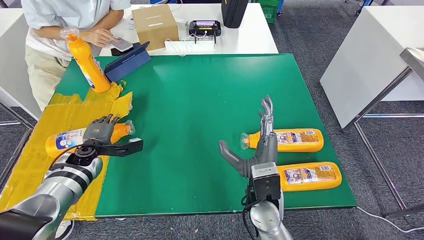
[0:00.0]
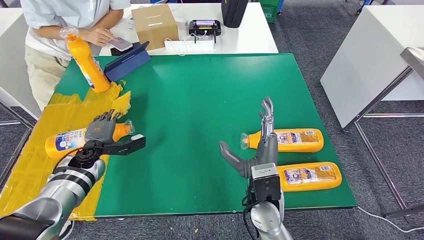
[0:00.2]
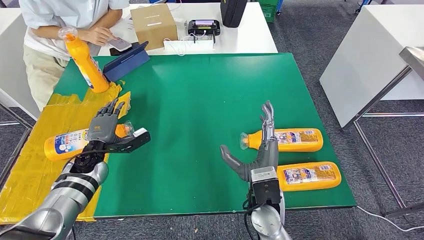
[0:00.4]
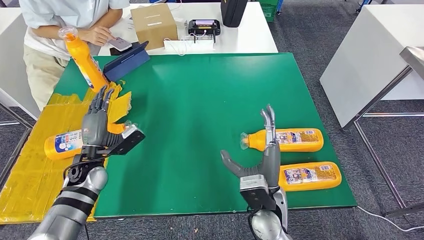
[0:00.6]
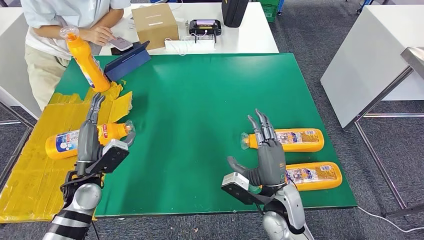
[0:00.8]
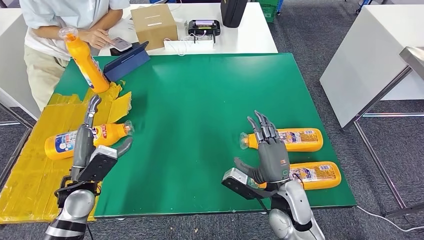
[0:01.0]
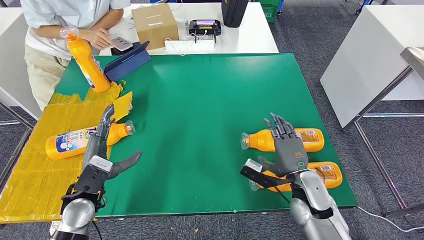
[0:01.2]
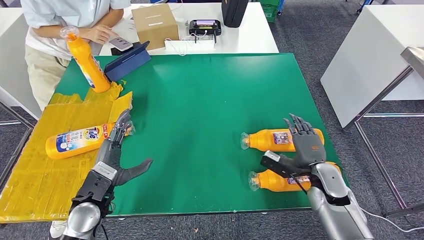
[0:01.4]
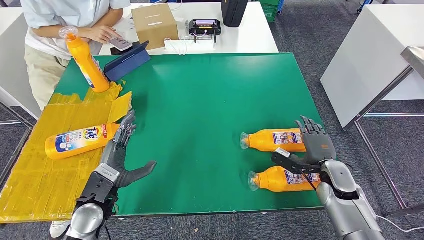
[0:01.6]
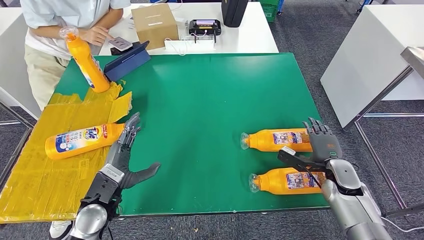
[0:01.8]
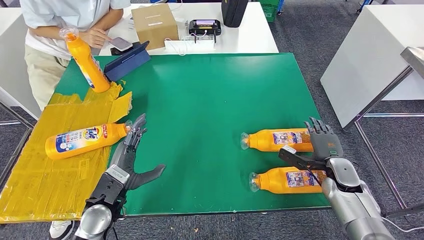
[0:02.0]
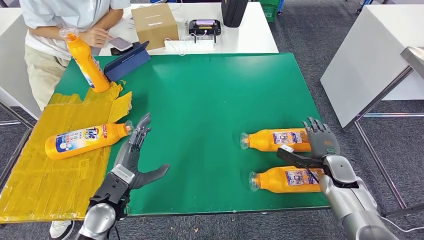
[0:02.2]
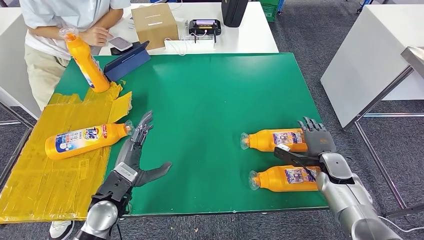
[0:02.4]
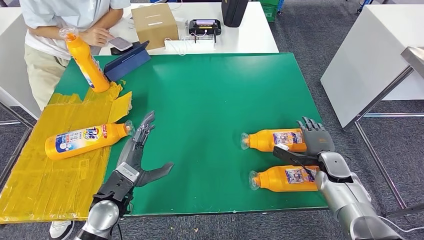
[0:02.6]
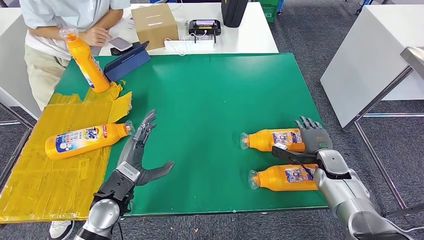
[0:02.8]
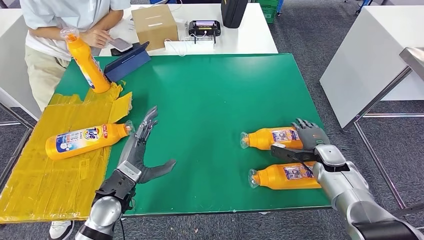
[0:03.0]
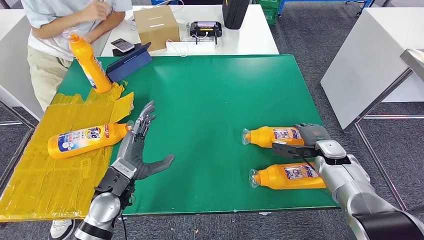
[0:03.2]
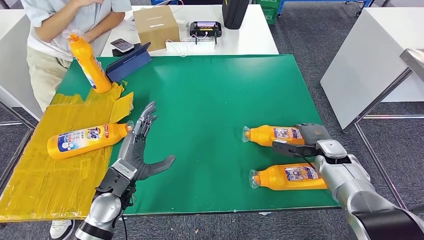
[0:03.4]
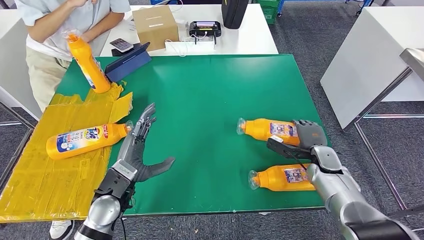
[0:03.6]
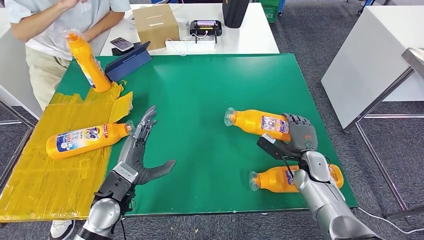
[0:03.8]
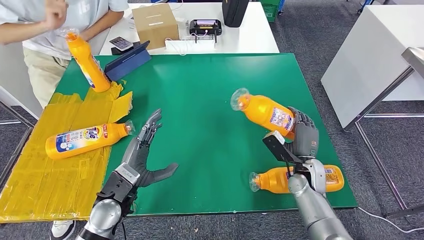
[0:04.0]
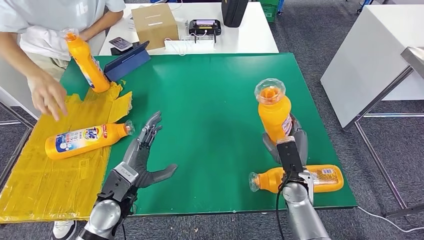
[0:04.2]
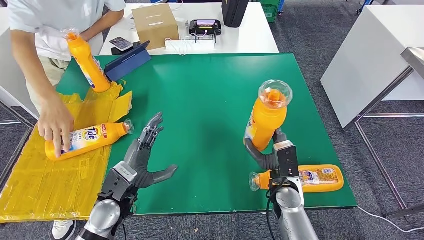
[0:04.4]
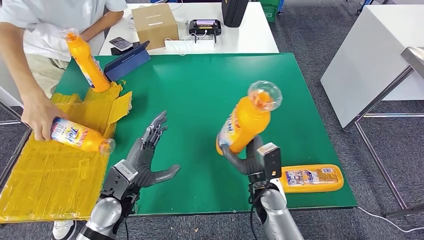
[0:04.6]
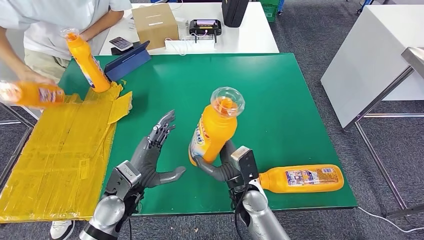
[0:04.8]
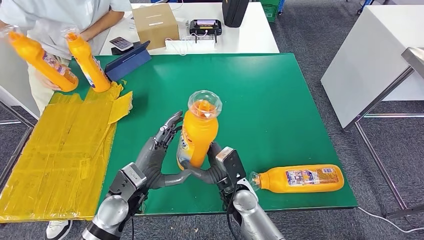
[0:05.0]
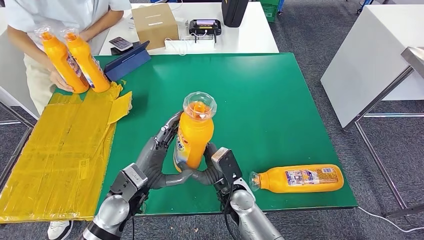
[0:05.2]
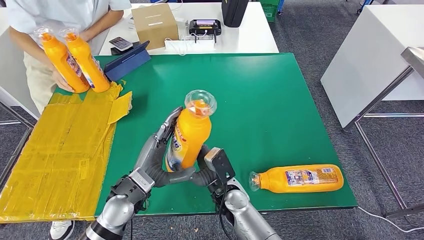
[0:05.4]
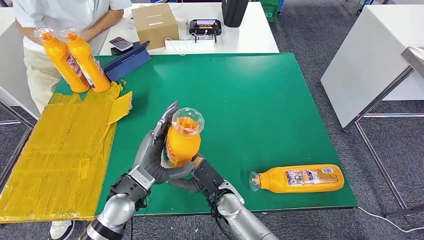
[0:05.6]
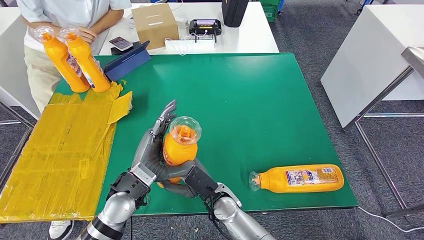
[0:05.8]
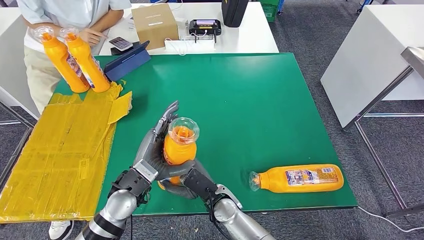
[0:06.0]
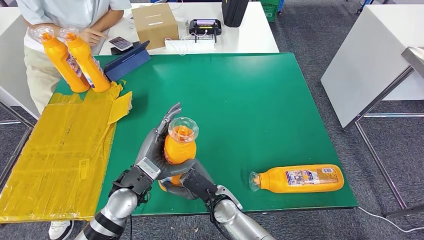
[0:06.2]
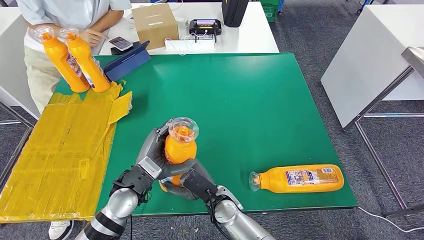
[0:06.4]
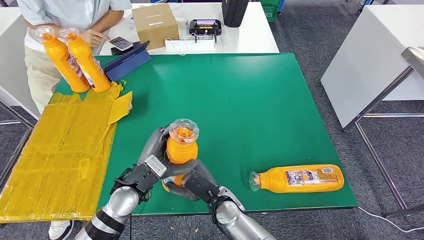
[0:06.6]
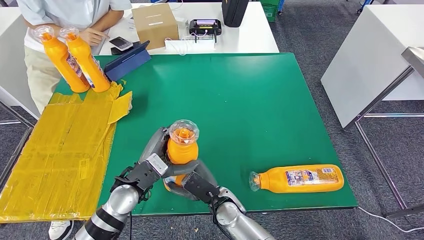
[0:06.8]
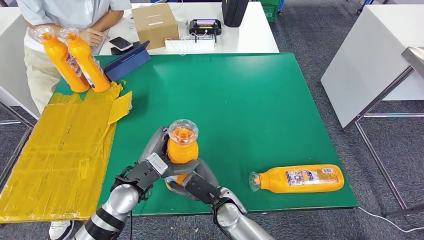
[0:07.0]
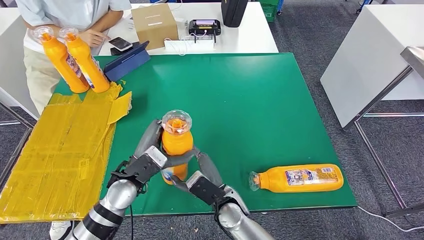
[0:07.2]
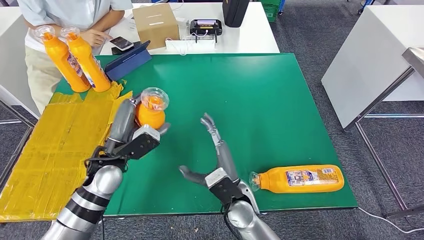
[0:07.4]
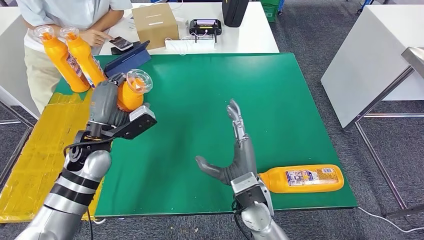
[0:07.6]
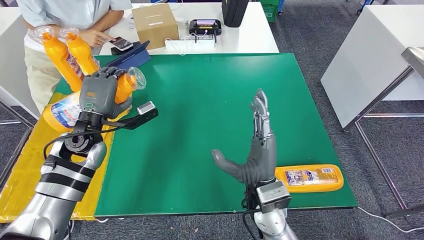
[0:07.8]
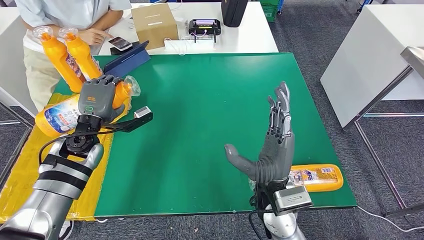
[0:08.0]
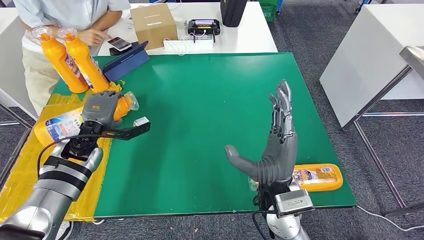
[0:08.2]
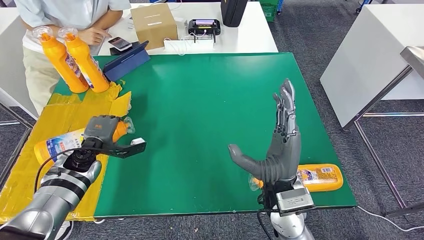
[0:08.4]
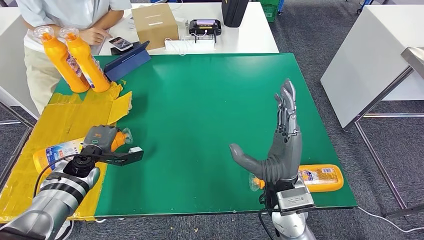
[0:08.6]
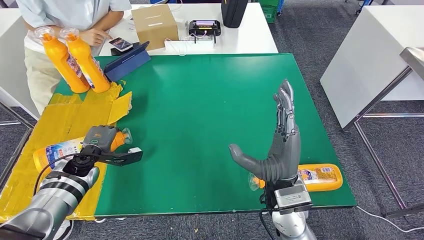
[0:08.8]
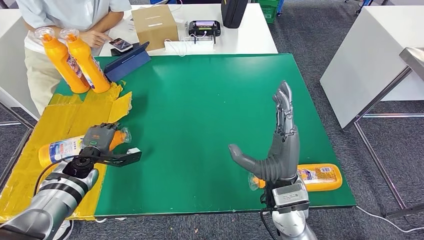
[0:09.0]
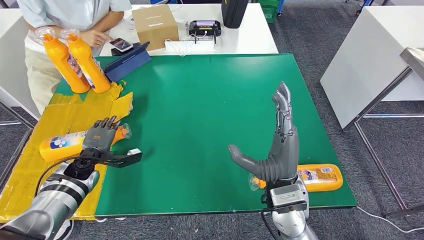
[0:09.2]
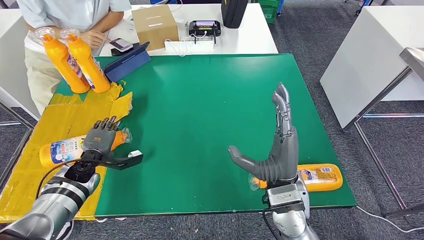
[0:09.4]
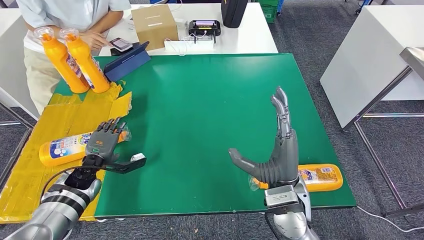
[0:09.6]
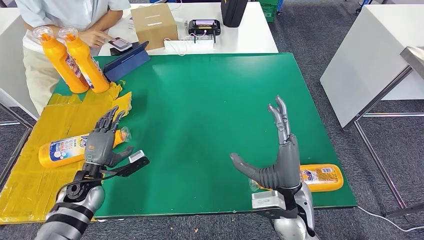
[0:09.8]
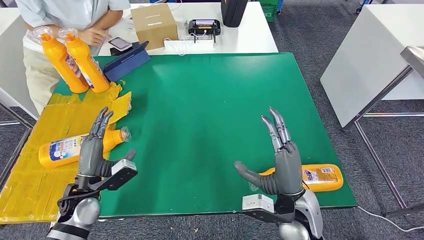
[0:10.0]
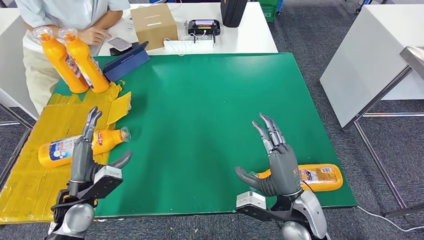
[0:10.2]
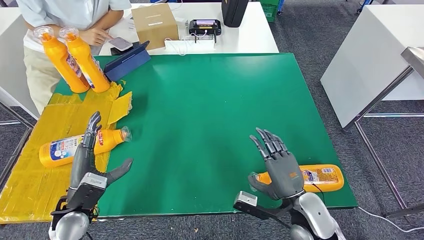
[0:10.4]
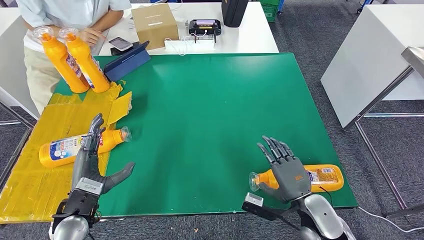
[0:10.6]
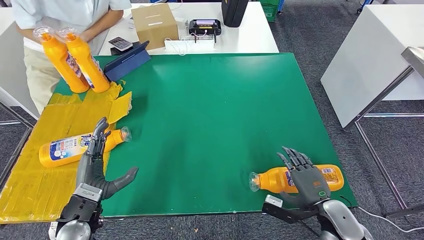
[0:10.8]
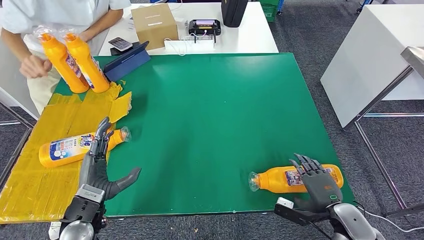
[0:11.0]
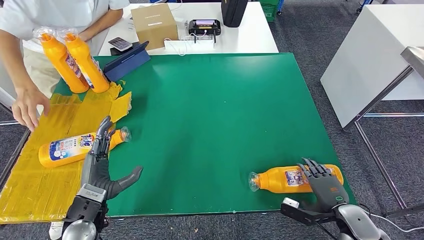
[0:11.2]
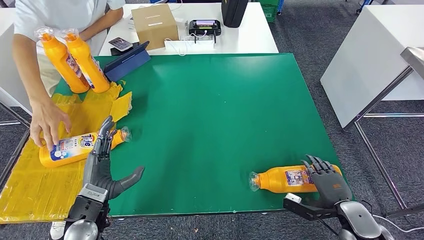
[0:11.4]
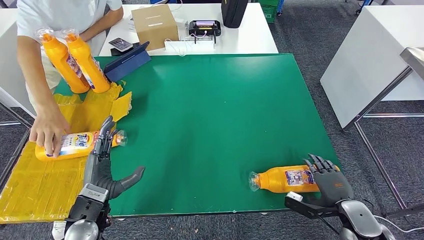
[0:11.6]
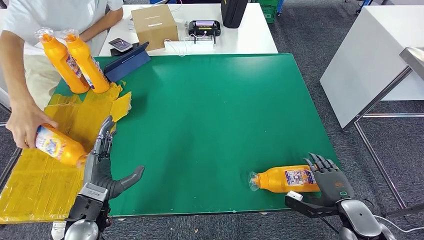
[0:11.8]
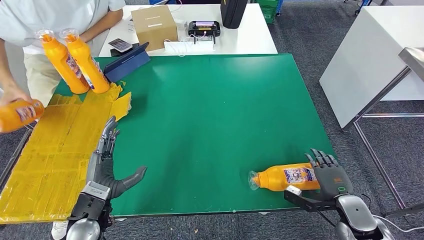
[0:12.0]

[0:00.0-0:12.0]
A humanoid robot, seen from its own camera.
Step, 0:00.0 to 0:04.2: Pick up the bottle from the table.
Step, 0:04.6 to 0:10.2: Flip the bottle to face forward.
0:01.6 to 0:03.0: The right hand moves forward, about 5 cm.
0:06.0 to 0:07.6: The left hand heads to the left, forward and upward, covering about 15 cm. The right hand moves upward and to the right, about 10 cm.
0:09.0 to 0:10.4: The left hand moves backward, approximately 15 cm, while the right hand is displaced downward and to the right by about 10 cm.

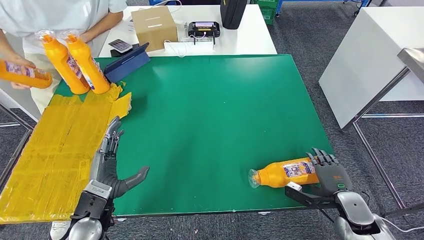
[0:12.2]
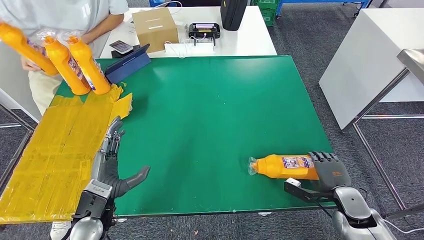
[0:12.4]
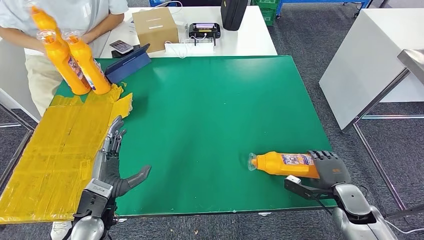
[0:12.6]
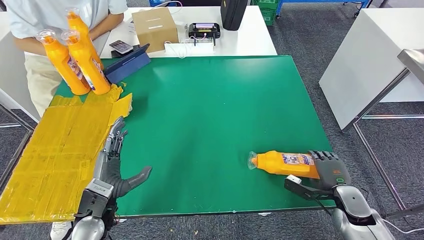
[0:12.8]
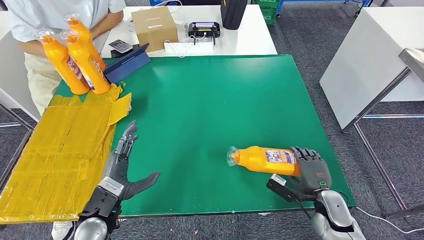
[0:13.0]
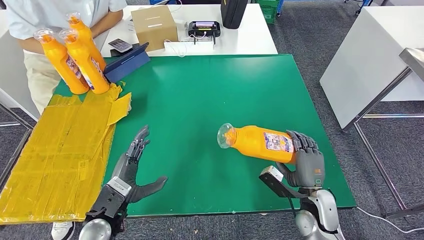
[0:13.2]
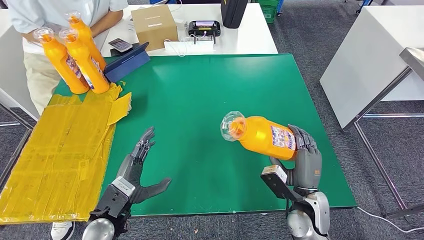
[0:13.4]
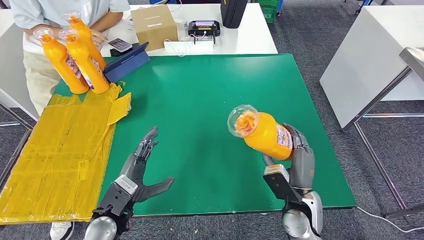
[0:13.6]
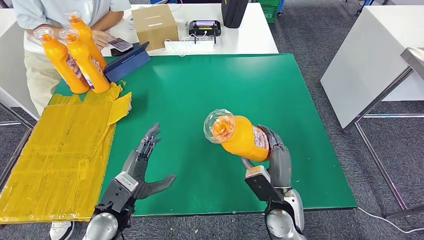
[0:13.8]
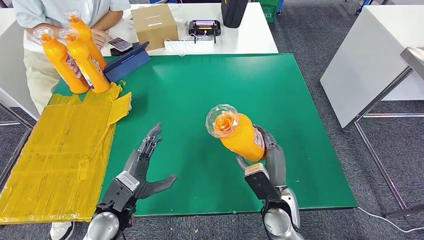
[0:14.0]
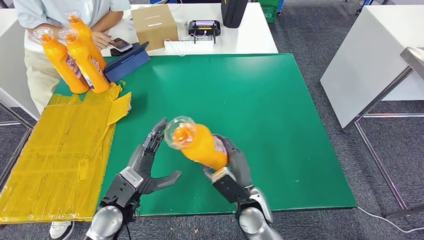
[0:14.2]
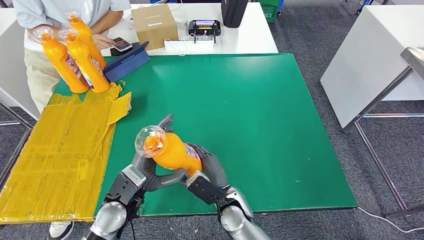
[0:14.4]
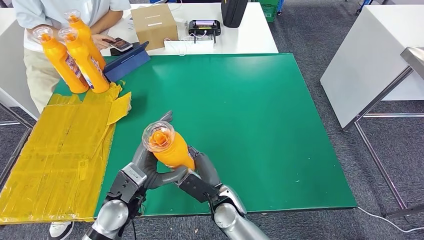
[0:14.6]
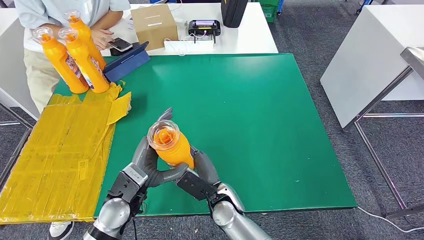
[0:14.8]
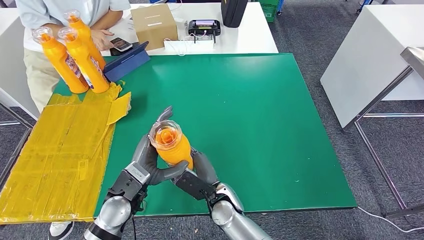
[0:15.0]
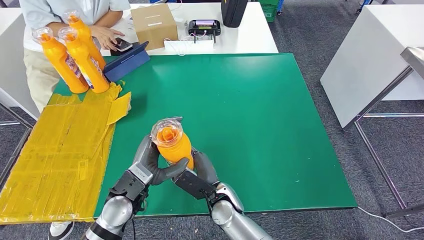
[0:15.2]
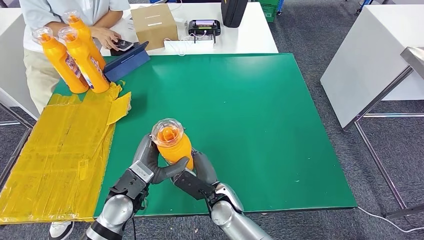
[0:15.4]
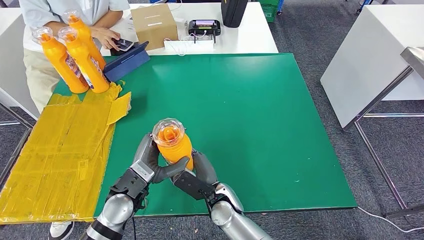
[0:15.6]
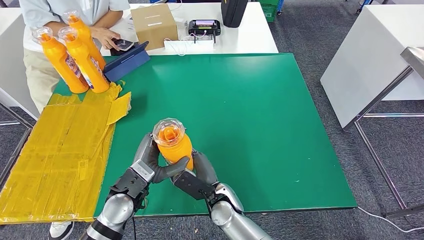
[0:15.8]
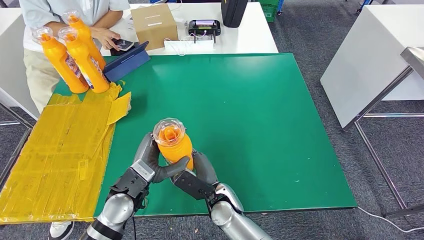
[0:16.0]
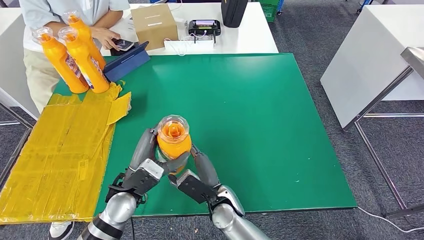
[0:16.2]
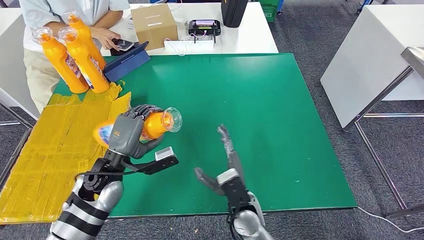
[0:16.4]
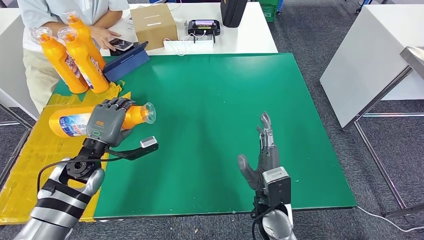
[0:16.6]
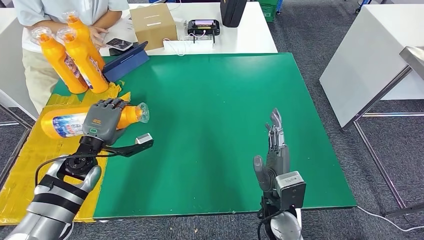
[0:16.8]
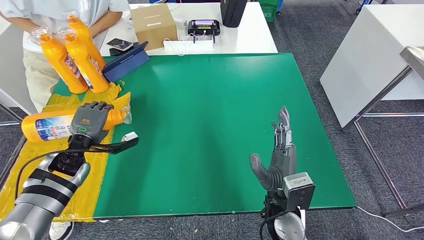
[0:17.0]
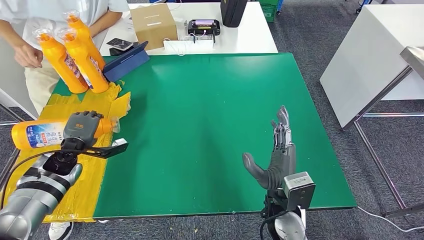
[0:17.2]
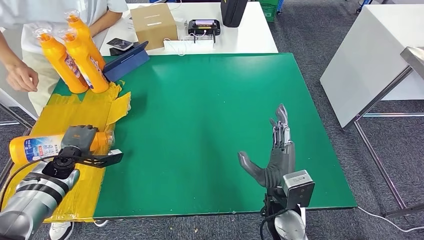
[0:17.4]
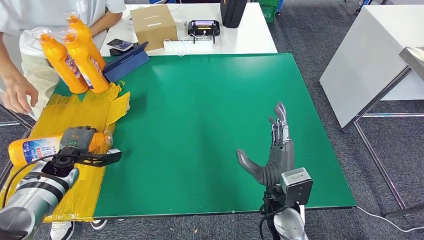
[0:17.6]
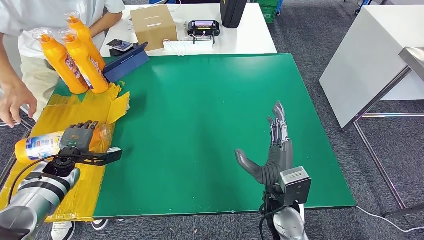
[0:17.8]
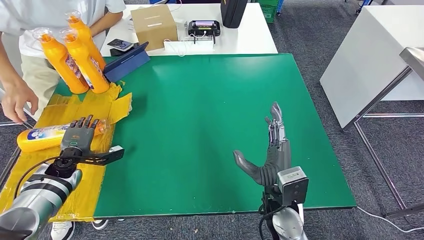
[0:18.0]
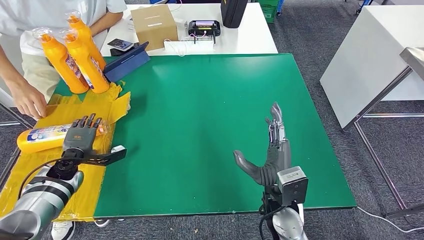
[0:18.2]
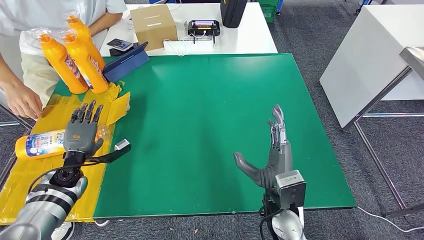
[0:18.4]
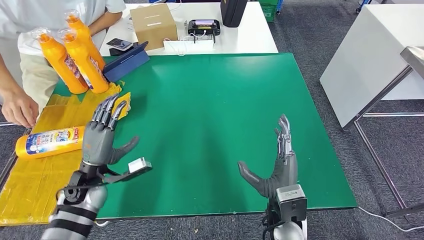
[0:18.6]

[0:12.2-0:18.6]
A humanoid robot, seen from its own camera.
Step, 0:14.4 to 0:18.6: Flip the bottle to face forward.
0:13.8 to 0:15.4: The right hand moves to the left, roughly 15 cm. The left hand ends up some 5 cm from where it was.
0:17.0 to 0:18.6: The left hand travels backward by approximately 5 cm.
